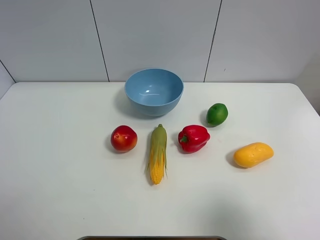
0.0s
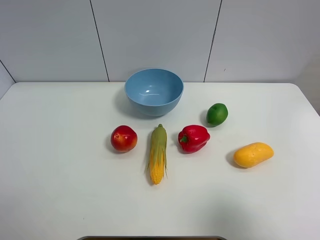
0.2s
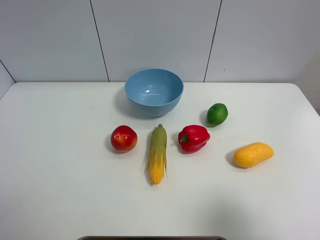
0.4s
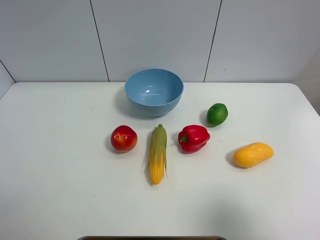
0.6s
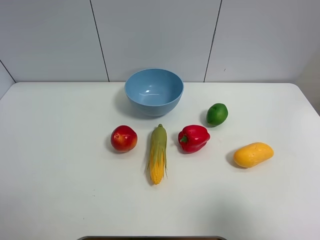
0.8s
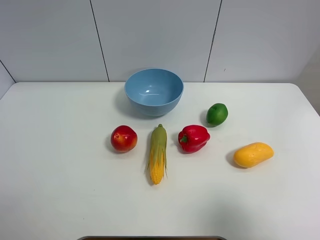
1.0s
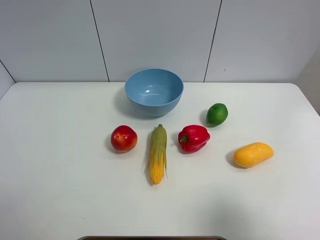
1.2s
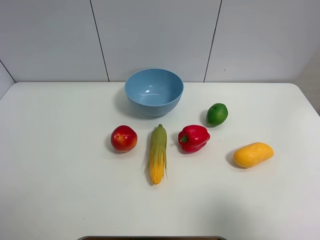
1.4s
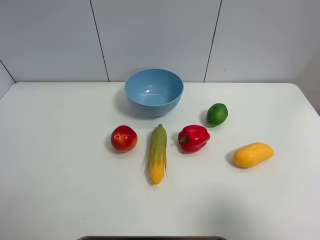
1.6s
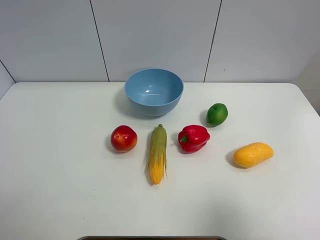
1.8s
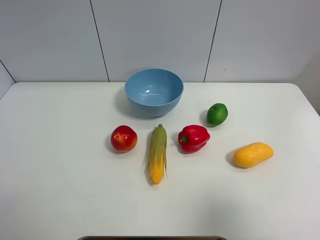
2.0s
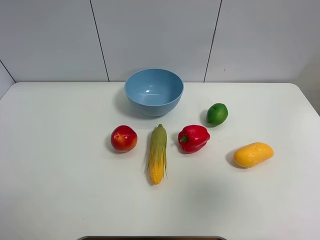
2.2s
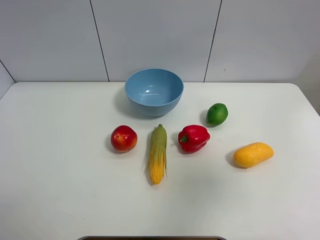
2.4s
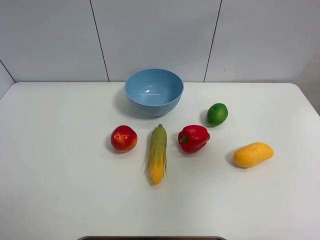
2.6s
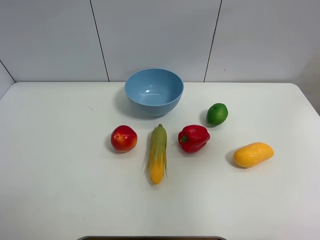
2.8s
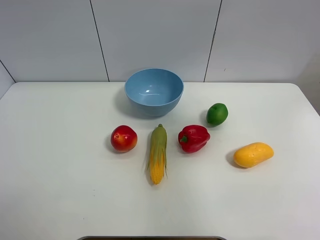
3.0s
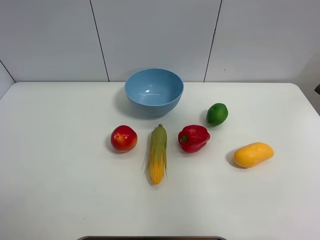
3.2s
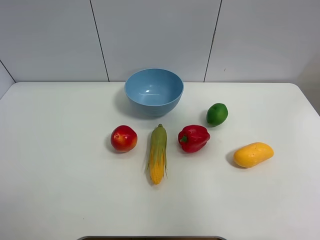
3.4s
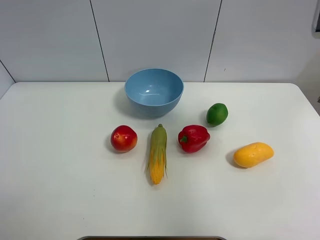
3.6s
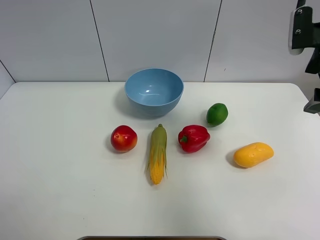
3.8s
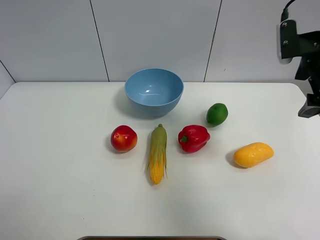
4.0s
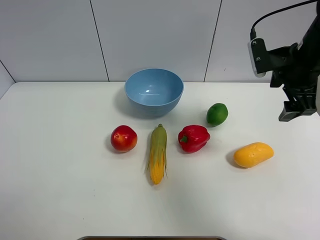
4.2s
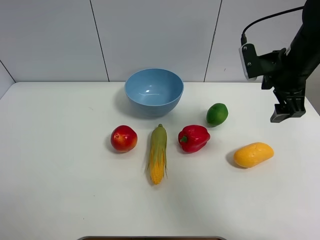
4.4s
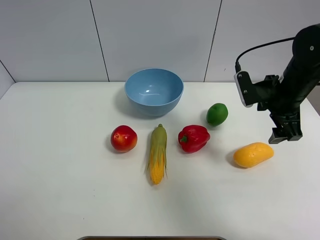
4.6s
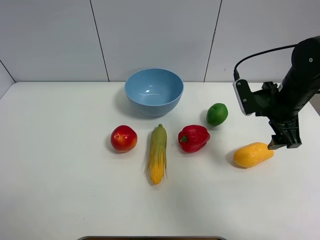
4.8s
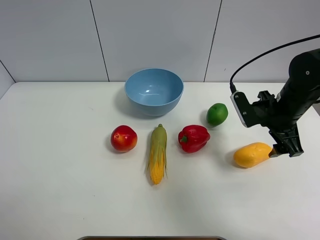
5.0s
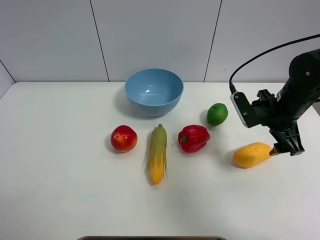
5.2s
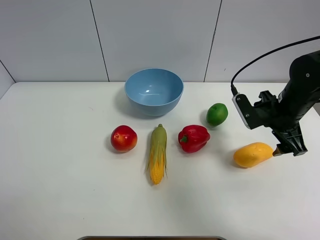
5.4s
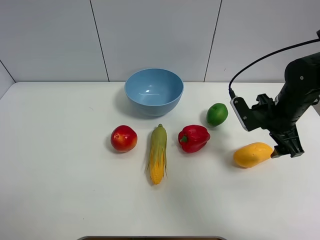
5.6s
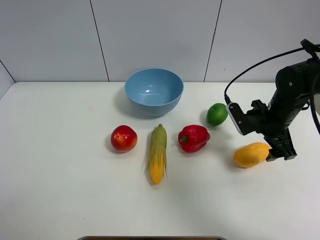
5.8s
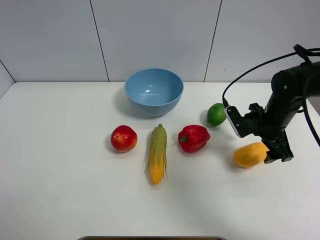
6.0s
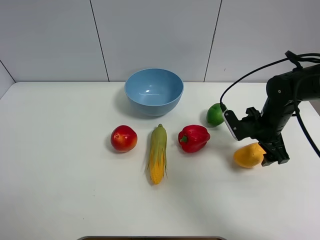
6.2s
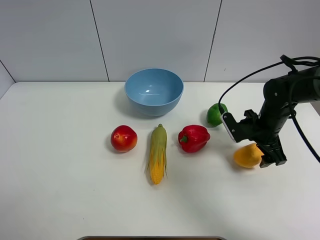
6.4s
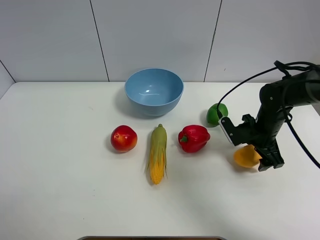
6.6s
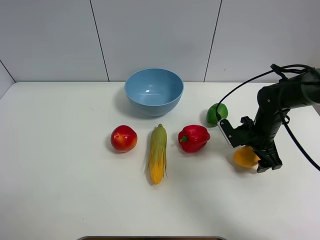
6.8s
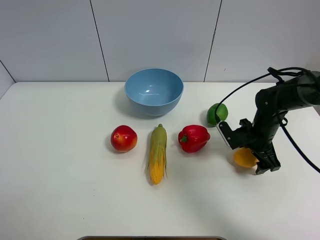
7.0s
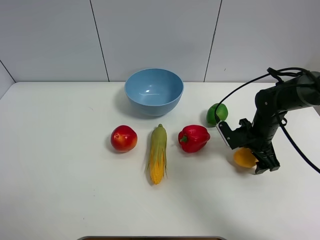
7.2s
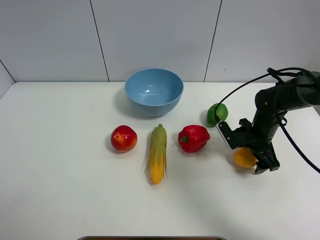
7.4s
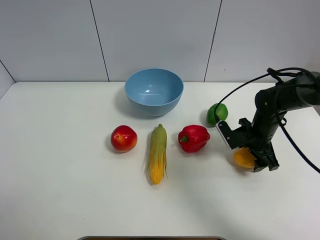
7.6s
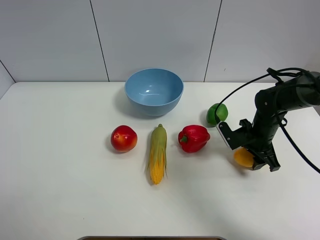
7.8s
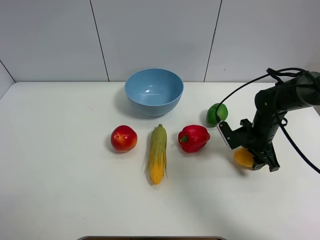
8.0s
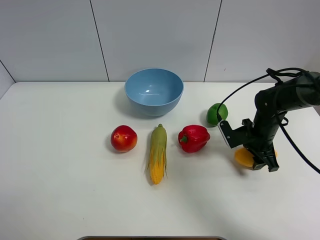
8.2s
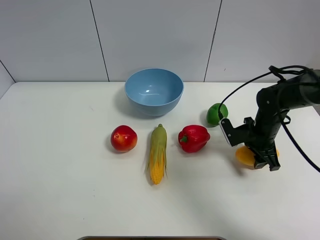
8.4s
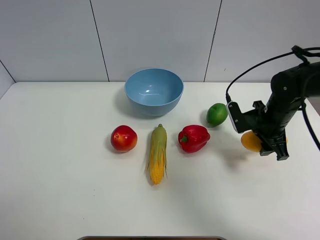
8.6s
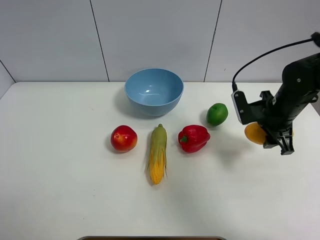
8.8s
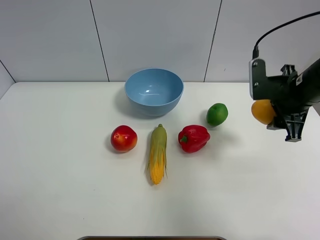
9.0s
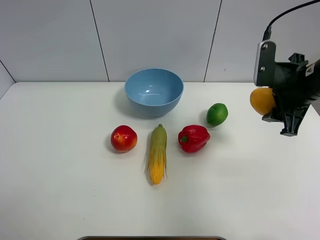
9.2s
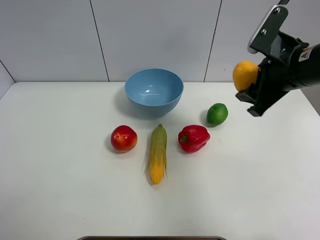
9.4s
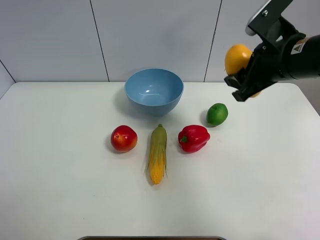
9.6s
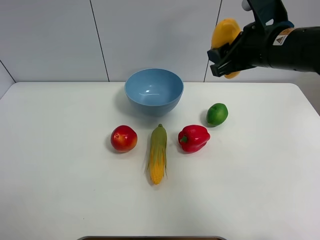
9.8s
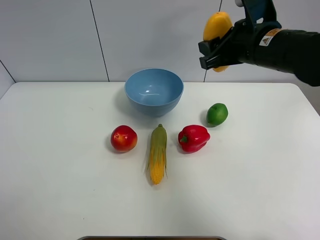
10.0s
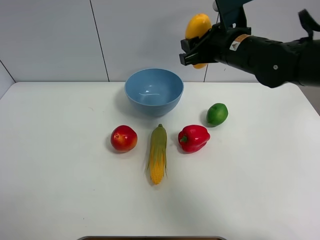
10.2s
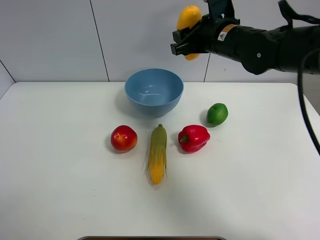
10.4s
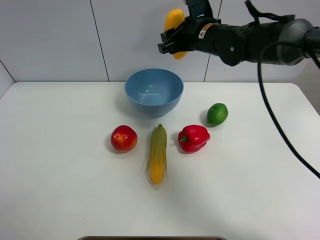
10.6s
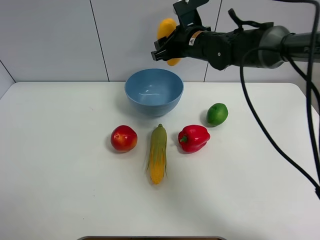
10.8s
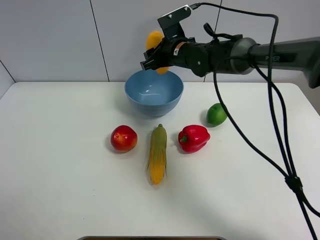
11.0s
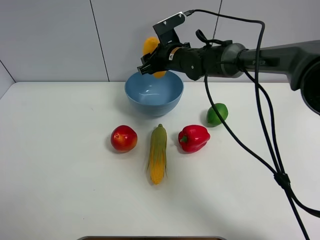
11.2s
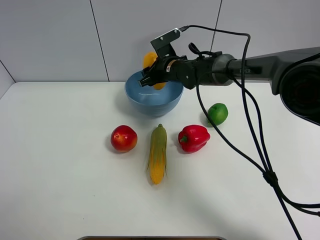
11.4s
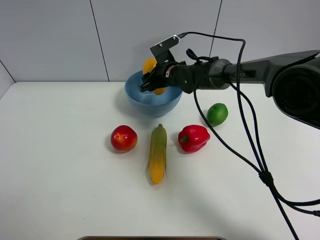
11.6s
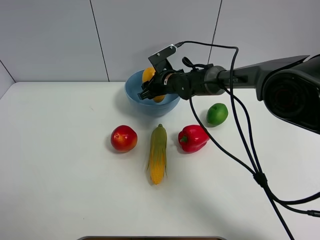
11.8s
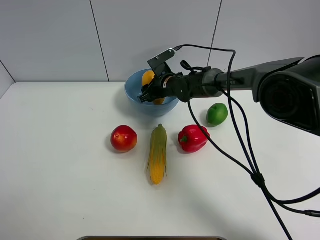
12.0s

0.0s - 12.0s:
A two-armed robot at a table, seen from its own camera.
Task of the whole recording: Put the three fruits on the table into a bowl.
Step, 0.0s - 7.6s: Grasp the mango with right gripper.
0.0s - 1.6s: The two grippers keep their place.
1.6s - 3.0s: The right gripper goes about 25 cm forward and upward, and opens up.
3.0s - 4.4s: The right gripper is displaced downward and forward by about 15 cm.
4.4s - 6.0s: The right gripper heads downward, covering about 10 cm.
6.0s - 7.6s: The right gripper travels downward by about 5 cm.
7.6s - 9.0s: The right gripper travels upward by roughly 15 cm.
9.0s - 10.4s: The right gripper heads to the left and forward, covering about 15 cm.
10.4s - 12.0s: The right gripper is displaced downward, to the left and forward by some 20 cm.

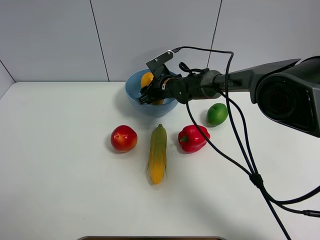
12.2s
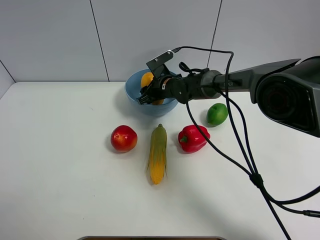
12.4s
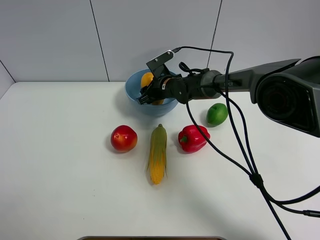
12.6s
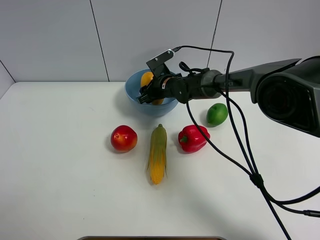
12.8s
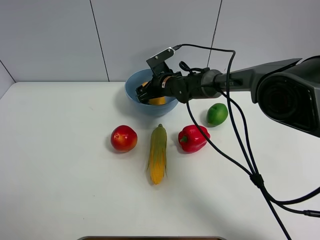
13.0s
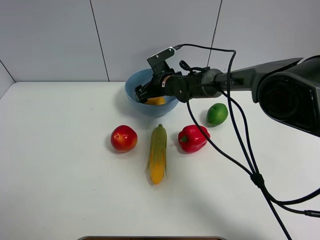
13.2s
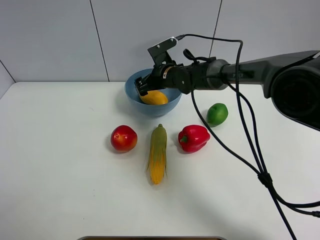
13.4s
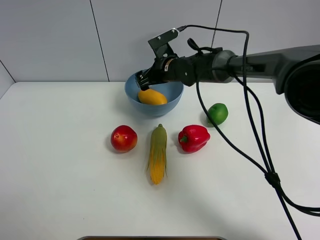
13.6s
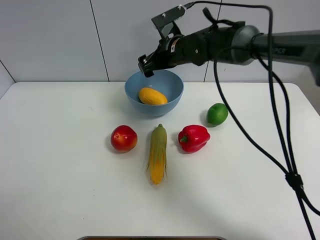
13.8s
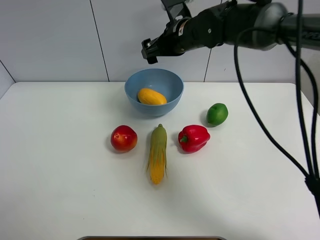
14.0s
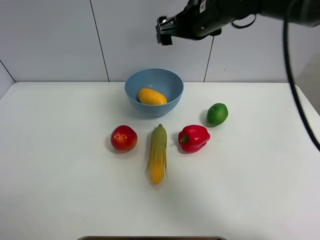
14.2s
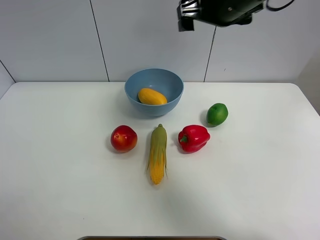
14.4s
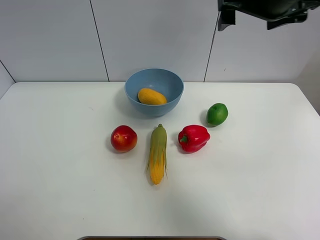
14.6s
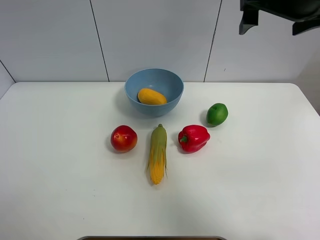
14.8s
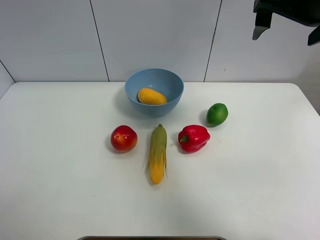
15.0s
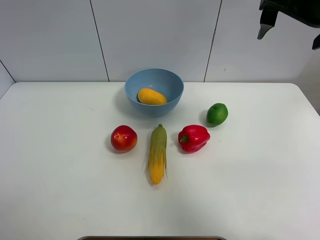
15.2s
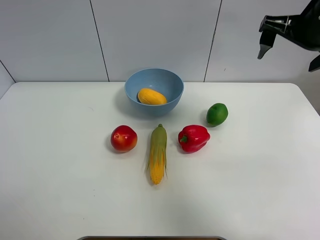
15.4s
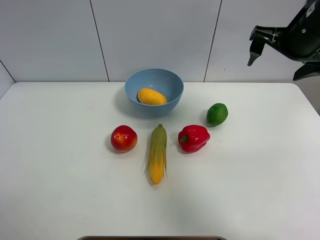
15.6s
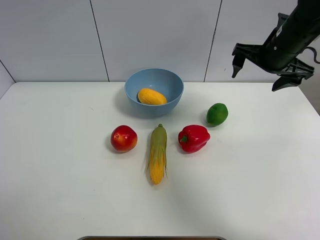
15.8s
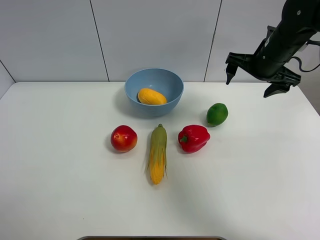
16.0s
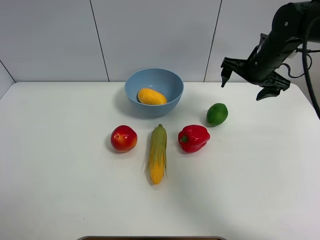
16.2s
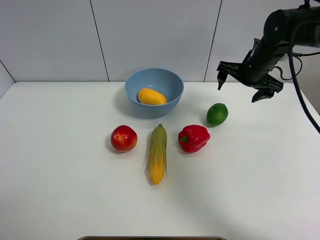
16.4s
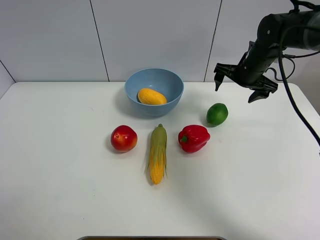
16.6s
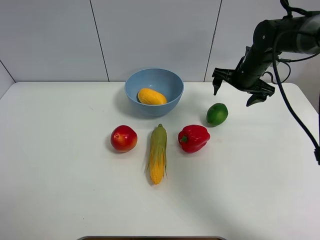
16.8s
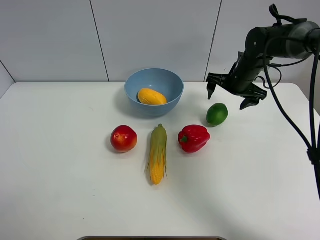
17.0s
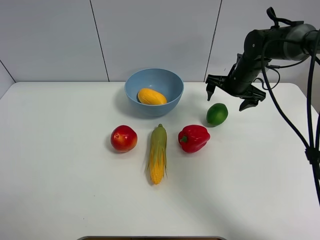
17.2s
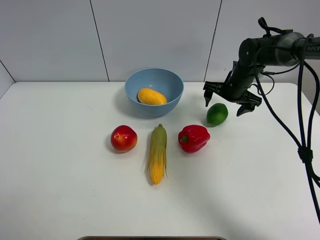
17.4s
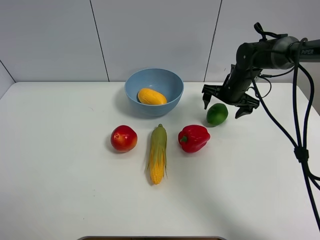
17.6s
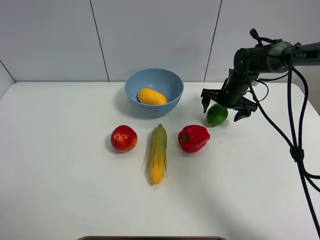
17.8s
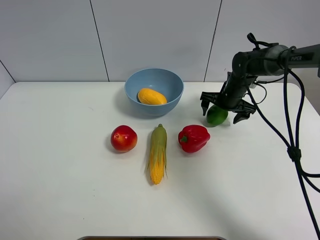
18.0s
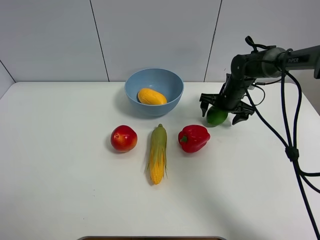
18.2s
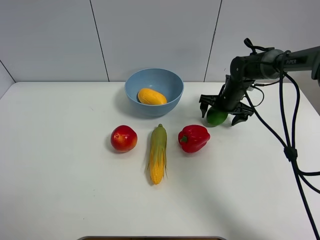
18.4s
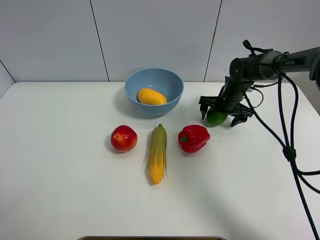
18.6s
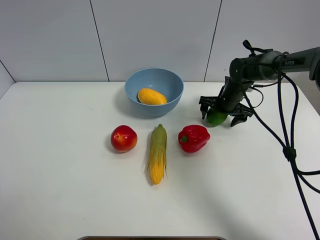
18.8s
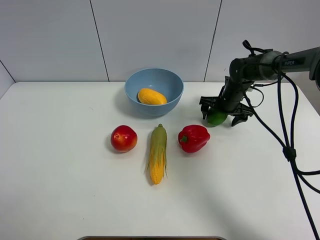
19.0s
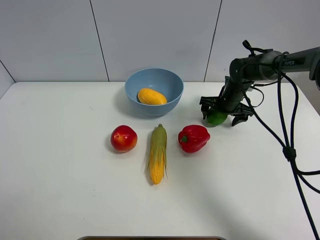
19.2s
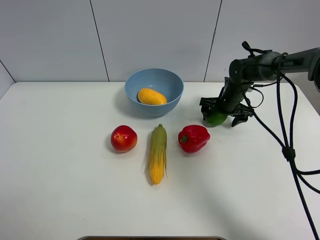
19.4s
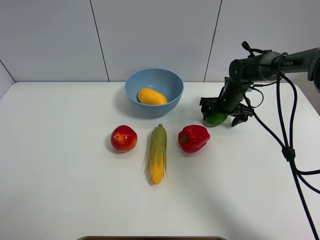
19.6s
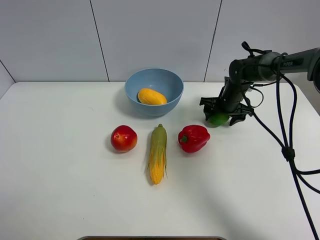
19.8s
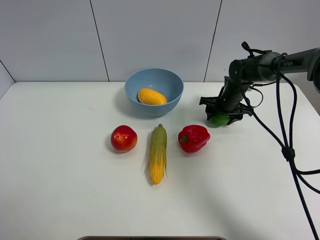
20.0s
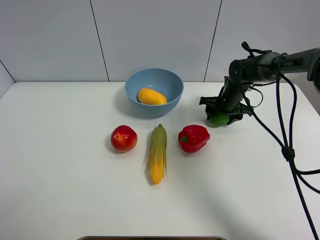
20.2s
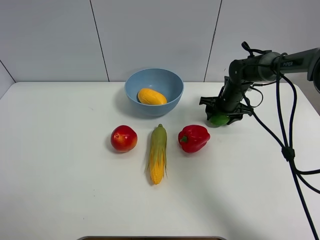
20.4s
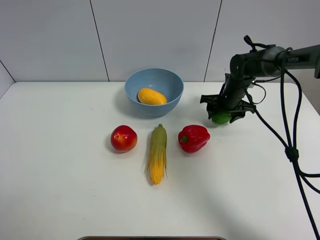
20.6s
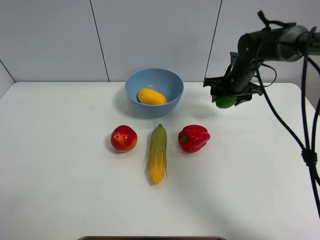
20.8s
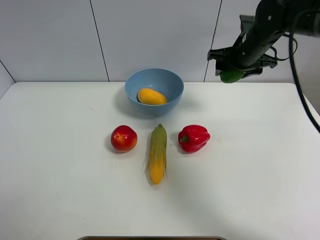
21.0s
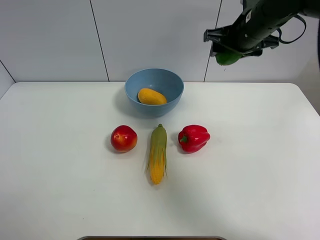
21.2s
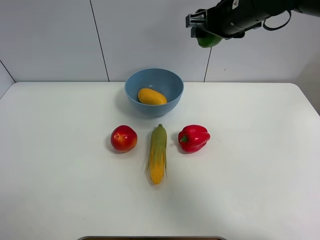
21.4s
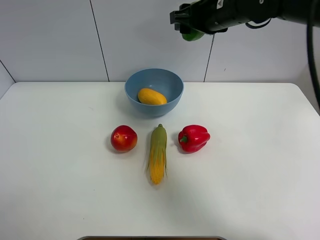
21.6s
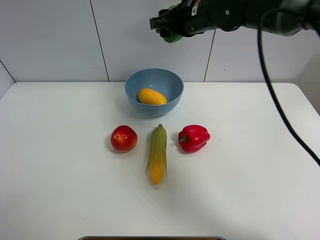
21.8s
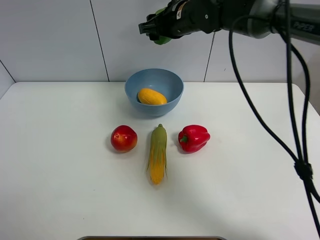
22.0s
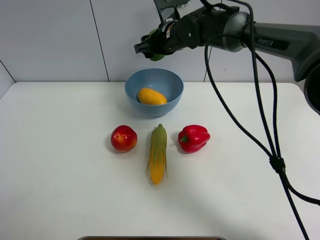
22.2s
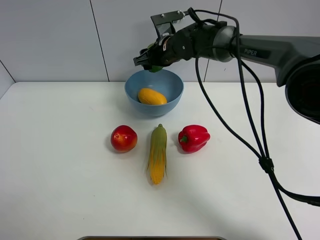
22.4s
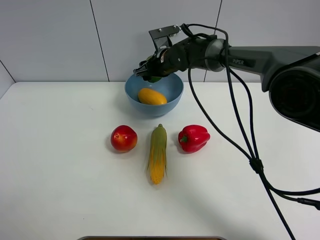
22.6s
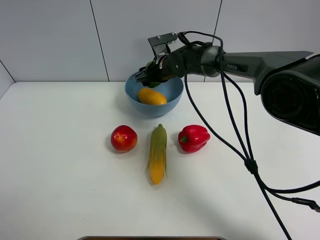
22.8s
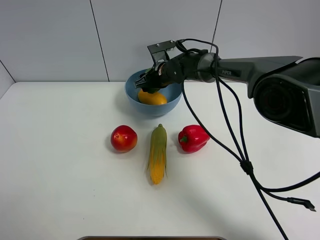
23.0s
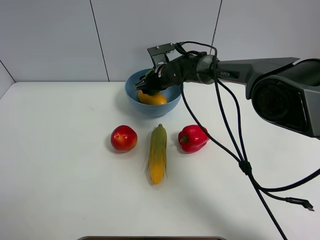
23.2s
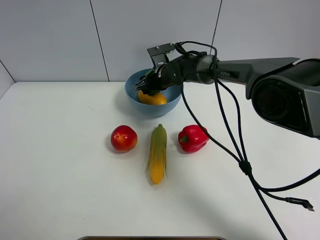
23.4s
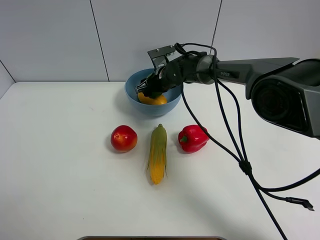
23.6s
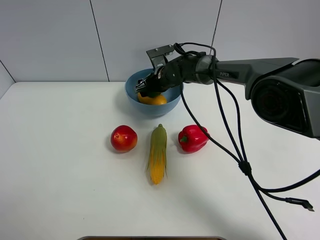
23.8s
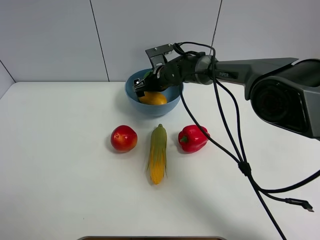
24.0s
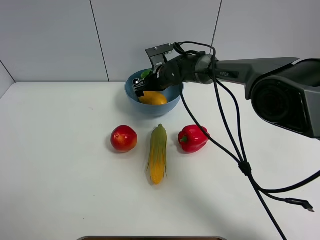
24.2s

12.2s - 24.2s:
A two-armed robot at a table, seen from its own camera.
Task of the whole recording: Put the three fruits on the table into a bowl.
Step, 13.4s - 20.0s: Grasp the green lemon with right gripper.
12.2s - 13.8s: The right gripper heads upward, covering roughly 15 cm, and opens.
13.8s - 15.2s: The right gripper travels to the right, upward and backward by about 25 cm.
15.2s - 16.6s: The right gripper travels downward and forward by some 20 cm.
16.6s - 18.2s: The right gripper goes roughly 10 cm downward.
18.2s - 19.8s: The grippers stay close to where they were, moving slightly.
19.8s - 21.2s: The right gripper shifts approximately 20 cm upward.
21.2s - 22.6s: The right gripper heads to the left, downward and forward, covering some 20 cm.
22.6s - 24.2s: The right gripper opens.
